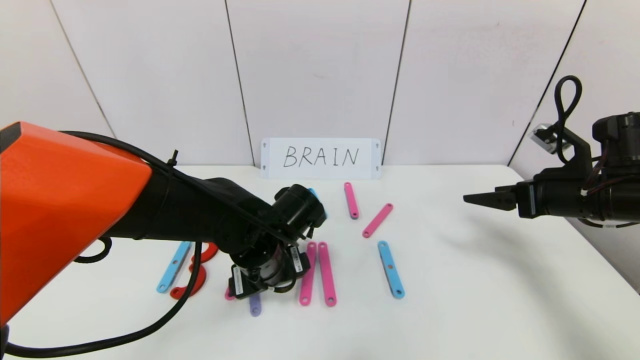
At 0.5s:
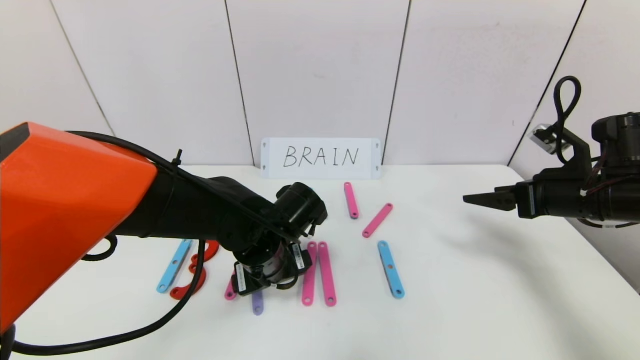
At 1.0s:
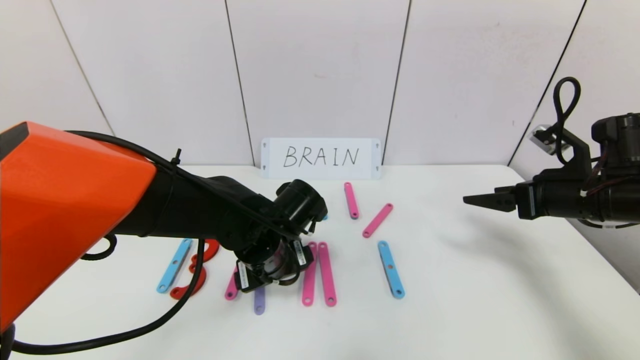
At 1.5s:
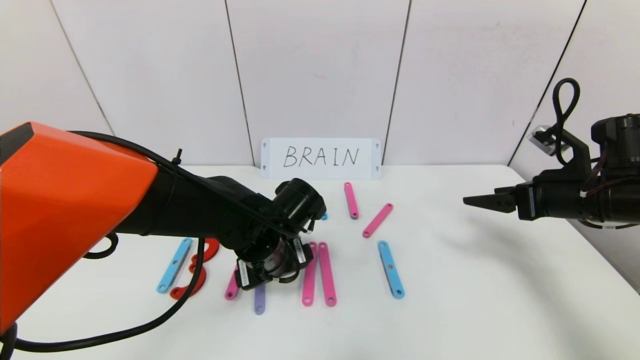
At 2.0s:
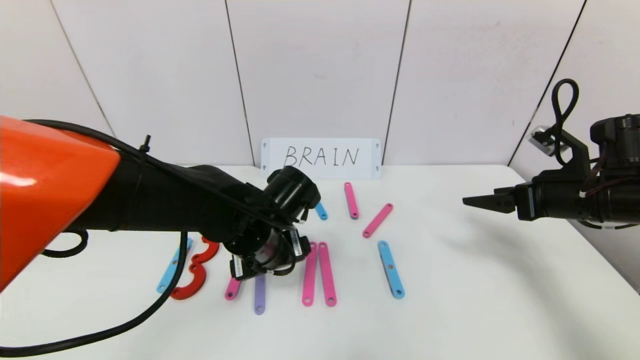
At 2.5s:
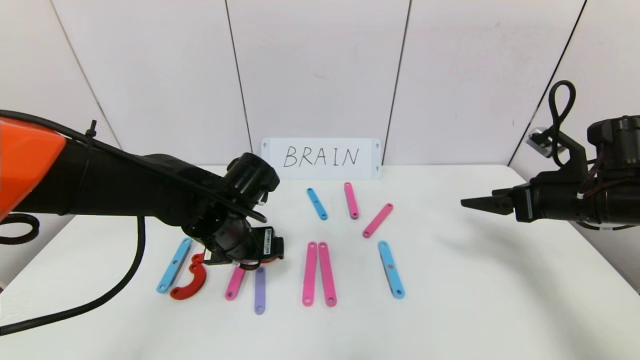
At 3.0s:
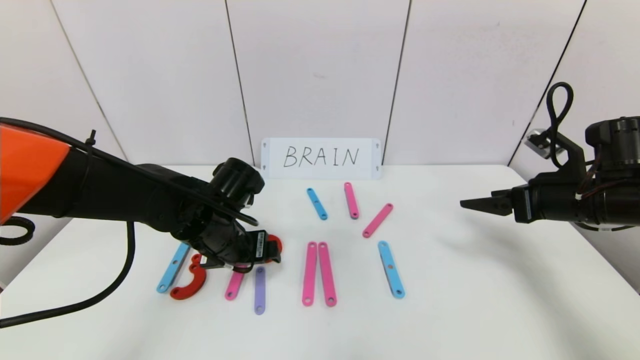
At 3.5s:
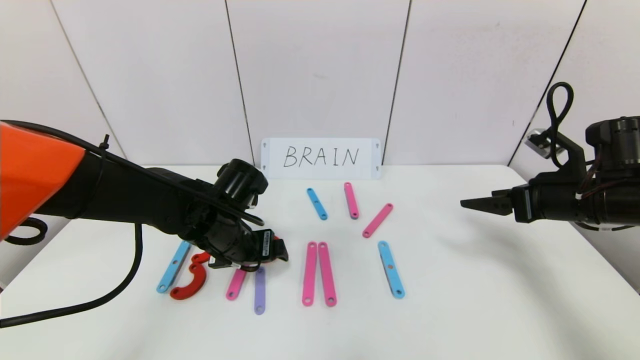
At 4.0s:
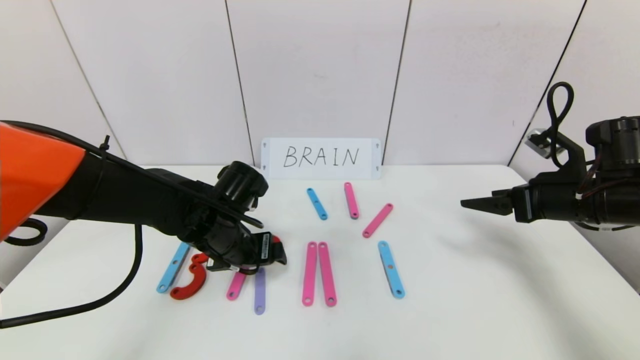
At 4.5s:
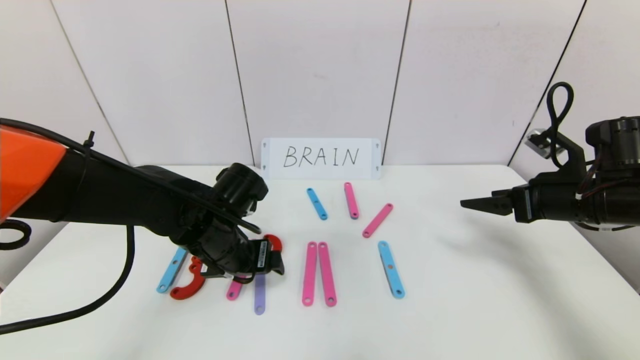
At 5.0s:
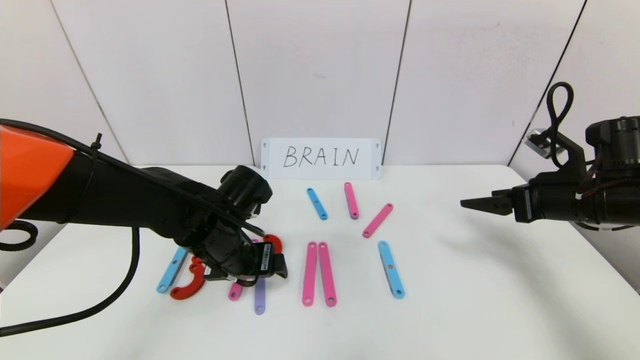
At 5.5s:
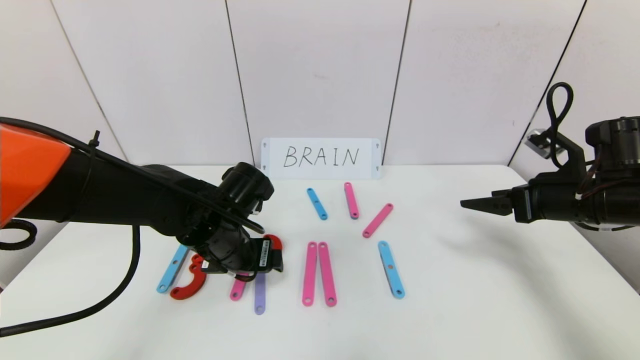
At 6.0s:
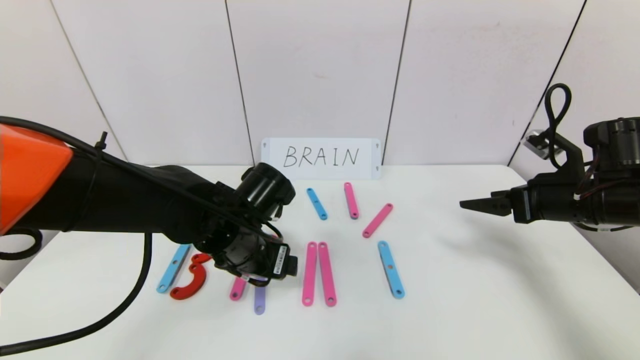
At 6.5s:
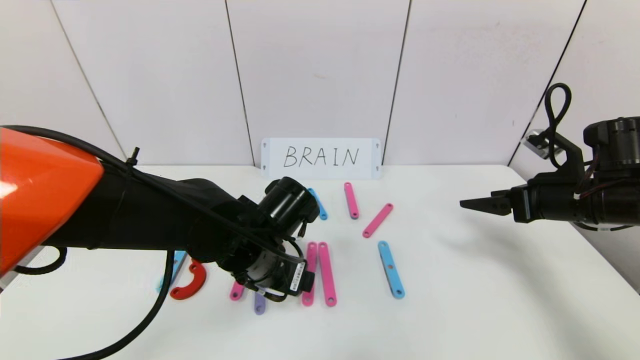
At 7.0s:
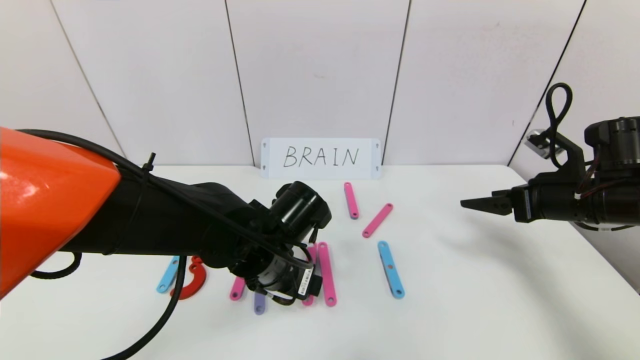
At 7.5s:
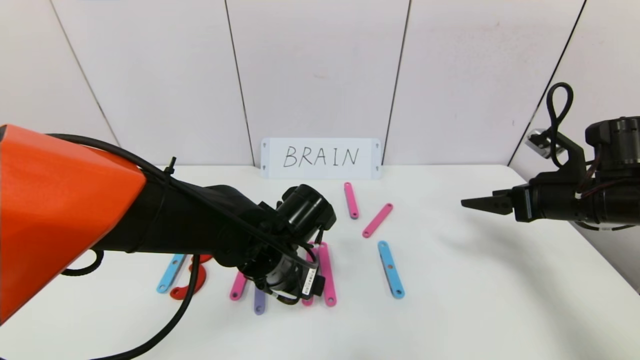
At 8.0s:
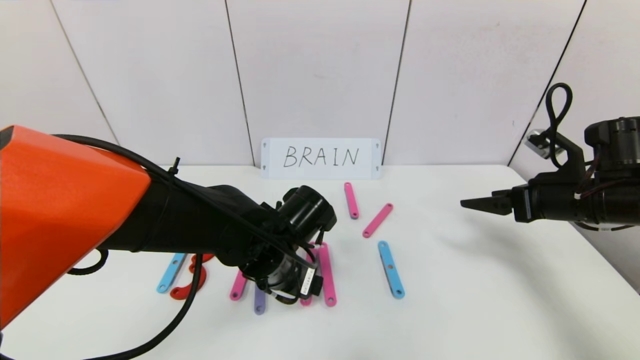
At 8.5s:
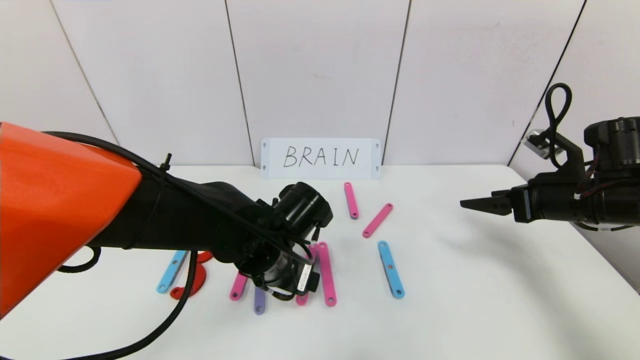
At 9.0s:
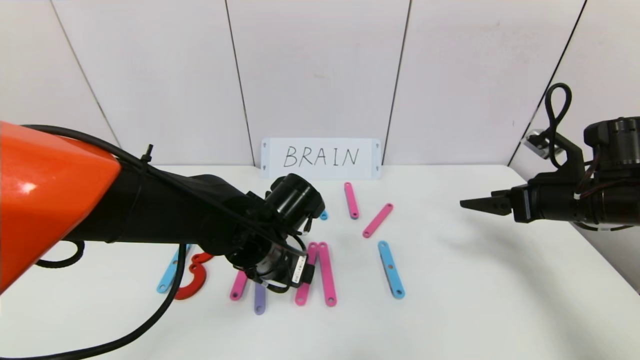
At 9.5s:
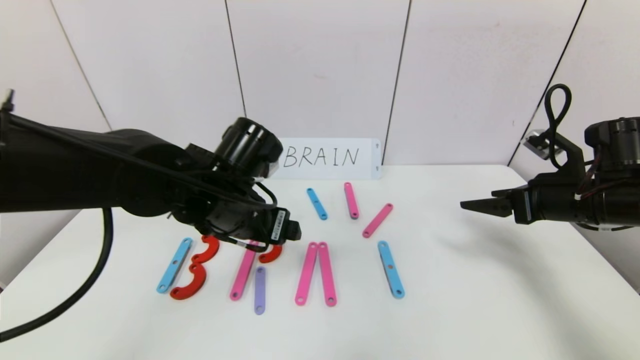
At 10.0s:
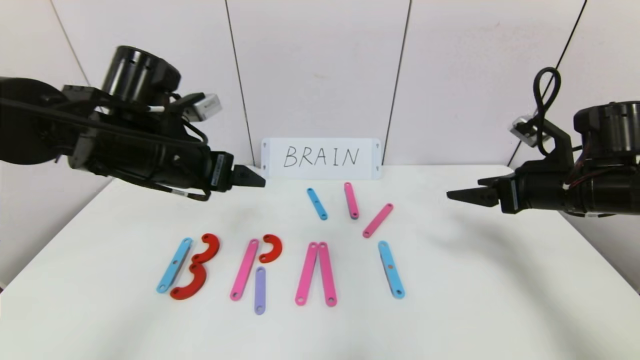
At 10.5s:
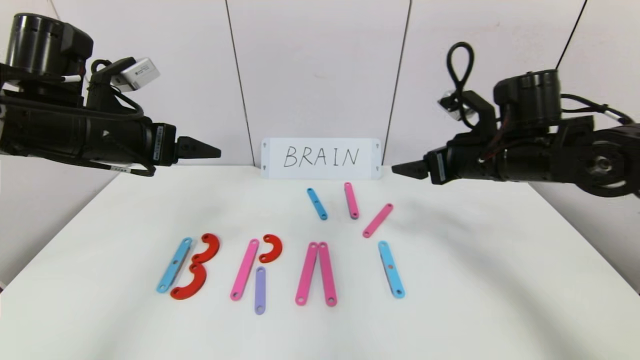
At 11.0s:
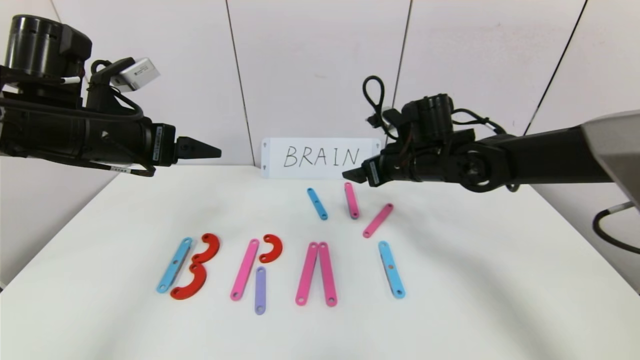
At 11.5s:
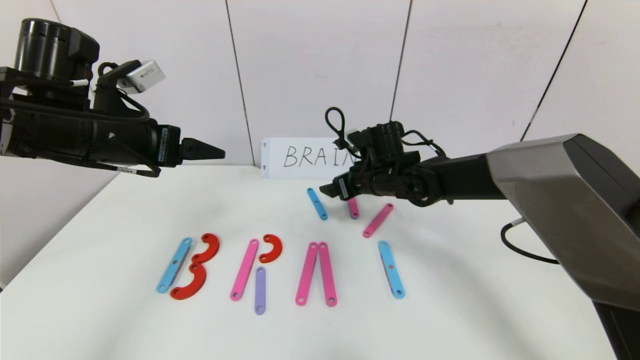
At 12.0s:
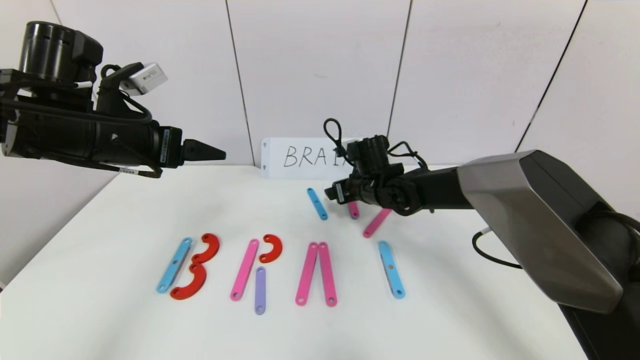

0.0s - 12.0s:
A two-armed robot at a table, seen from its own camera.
Task of the whole recording: rearrange the word baai as brain.
Step, 0.0s - 9.5s: Place the character R between first character B and third character A.
0.0s - 2.0s: There are only small adjustments of the grippers.
2.0s - 4.0s: The left gripper moves to the left, roughly 5 cm.
4.0s - 6.0s: The grippers move only a little.
6.0s - 8.0s: The grippers make only small movements.
8.0s - 10.0s: The left gripper heads upward and to the left, covering approximately 20 cm.
10.0s - 12.0s: The left gripper is displaced to the left by about 5 cm, while the right gripper moves to the left, forward and downward, roughly 30 cm.

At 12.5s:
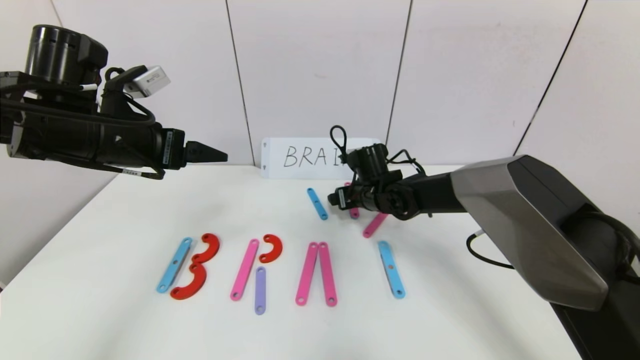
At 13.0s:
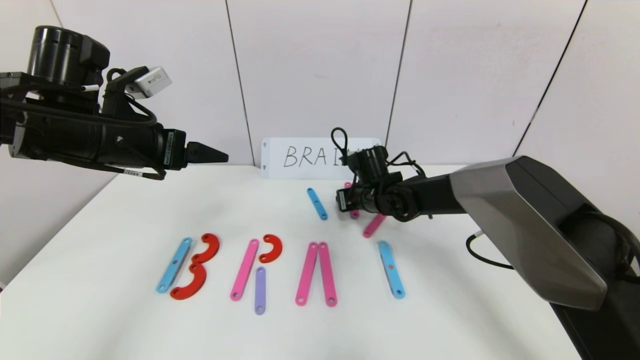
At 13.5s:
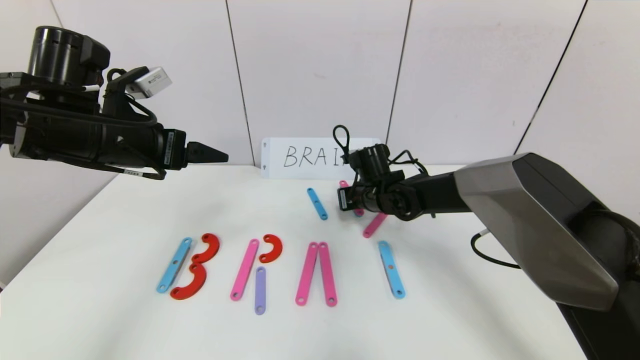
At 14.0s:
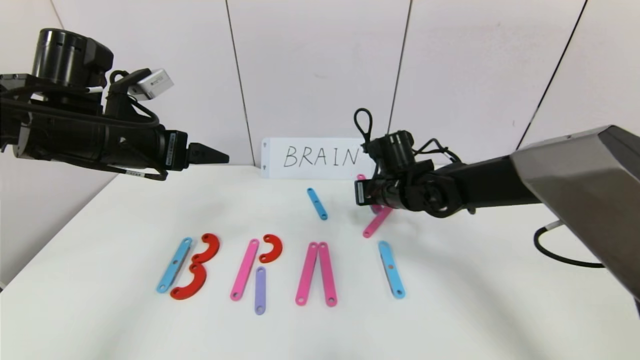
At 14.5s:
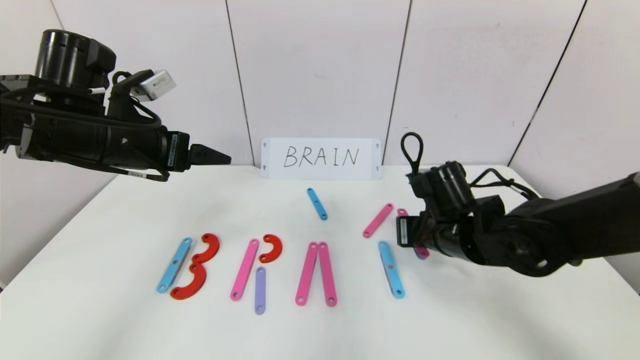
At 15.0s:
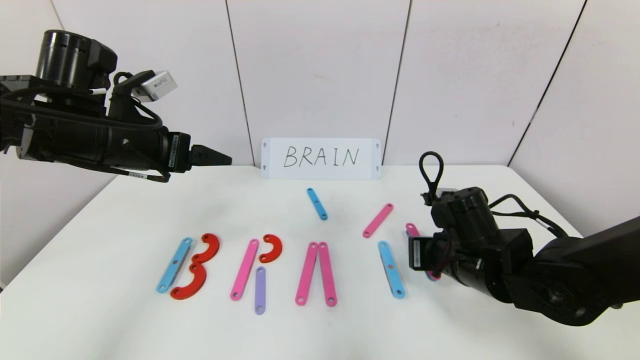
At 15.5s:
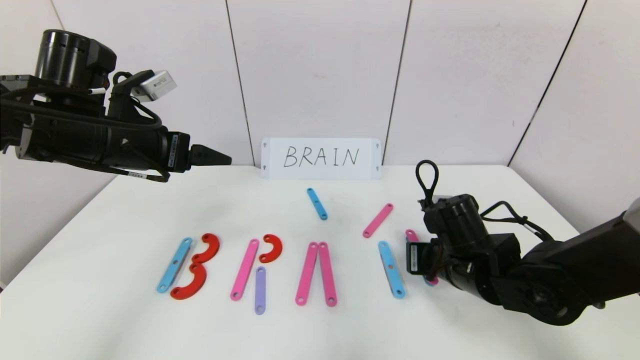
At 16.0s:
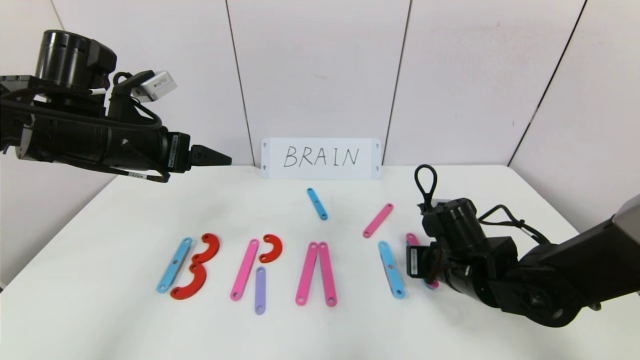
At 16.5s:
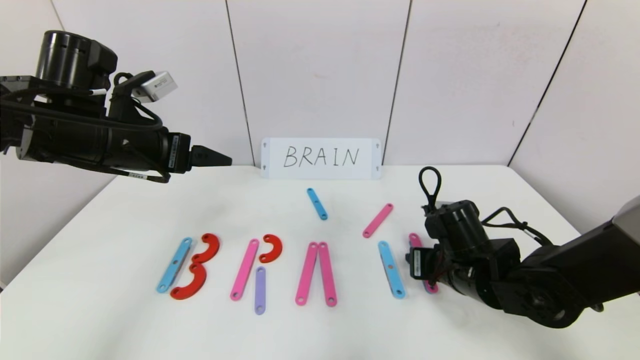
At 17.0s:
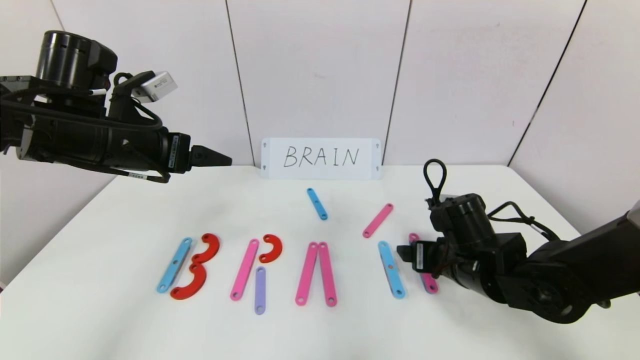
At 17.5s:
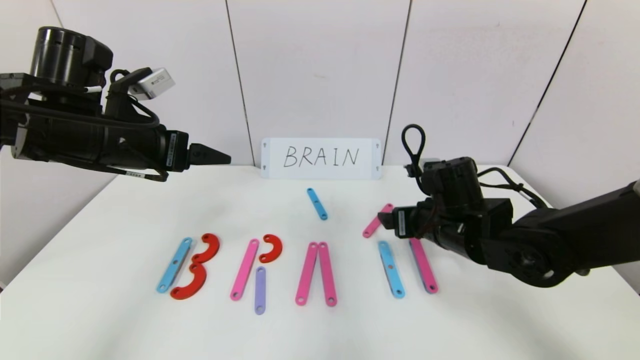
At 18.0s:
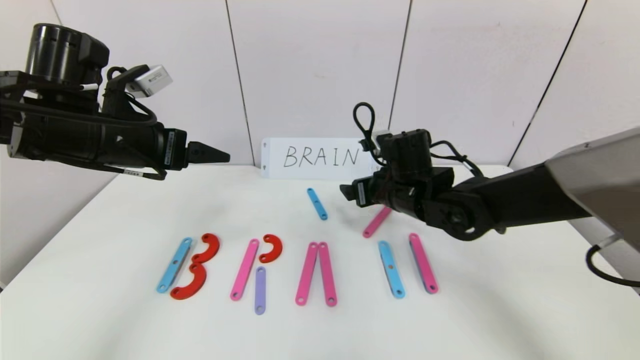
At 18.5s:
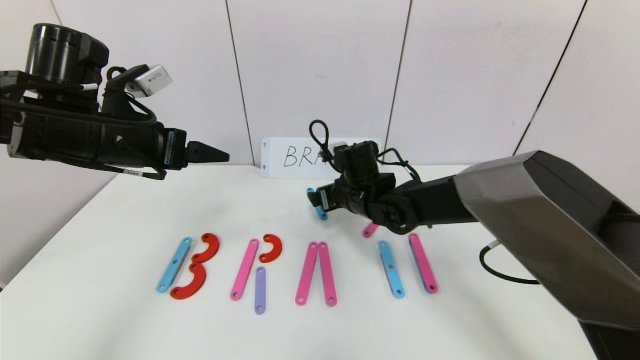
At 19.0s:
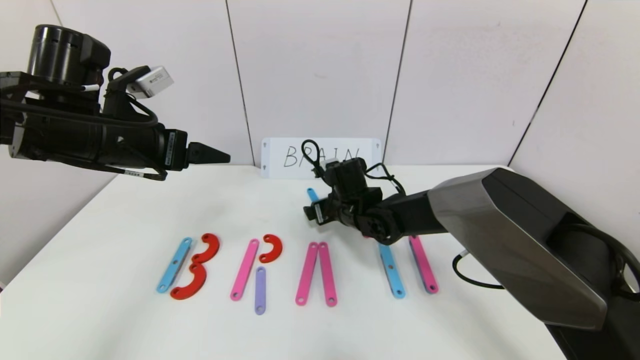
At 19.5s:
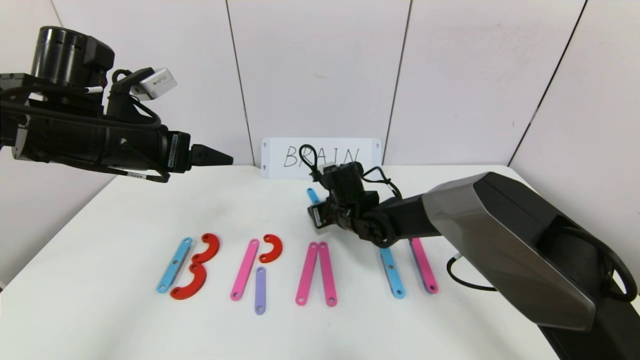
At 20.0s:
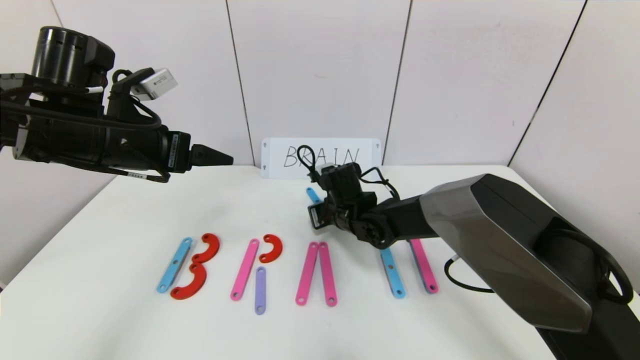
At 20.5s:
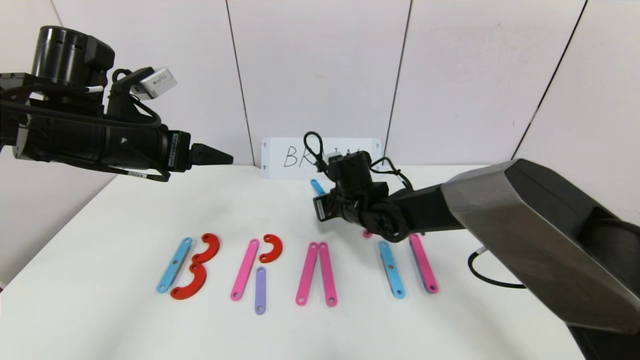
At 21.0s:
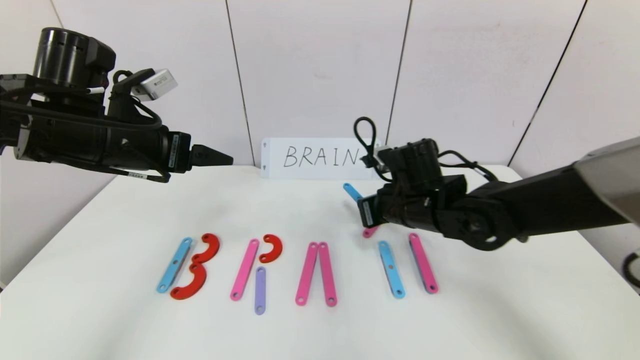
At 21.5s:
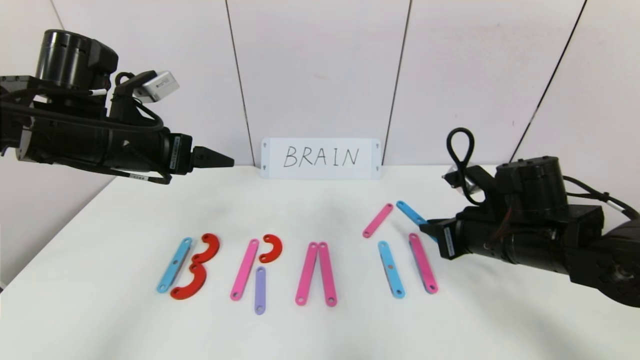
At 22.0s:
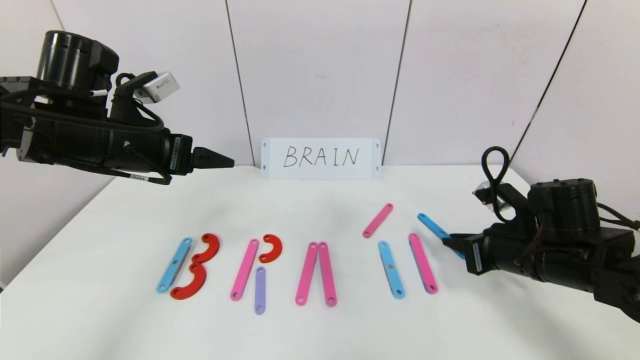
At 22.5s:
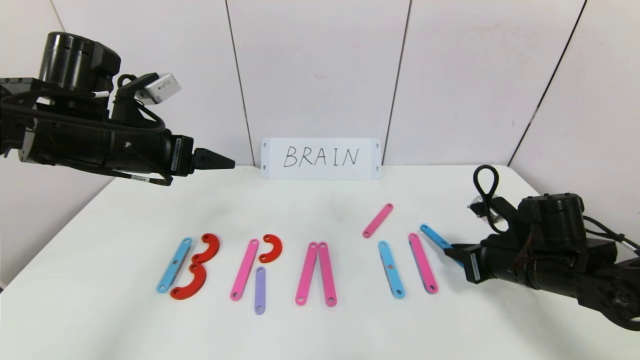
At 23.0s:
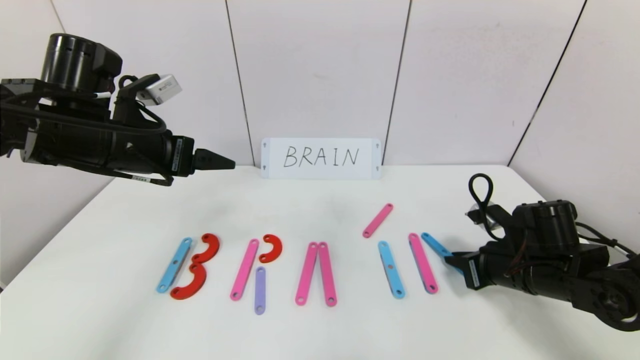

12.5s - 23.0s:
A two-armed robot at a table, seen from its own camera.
Task of the whole recording: rearrange the word baai as brain.
12.5s - 14.5s: The right gripper is displaced backward and to the right by roughly 15 cm, and closes.
14.5s - 16.5s: The right gripper shifts by roughly 5 cm, and opens.
16.5s - 19.0s: The right gripper moves to the left and forward, some 20 cm, and opens.
19.0s - 21.0s: The right gripper travels to the right, backward and upward by approximately 15 cm, and closes up.
21.0s - 23.0s: The right gripper travels to the right, downward and backward by roughly 20 cm.
